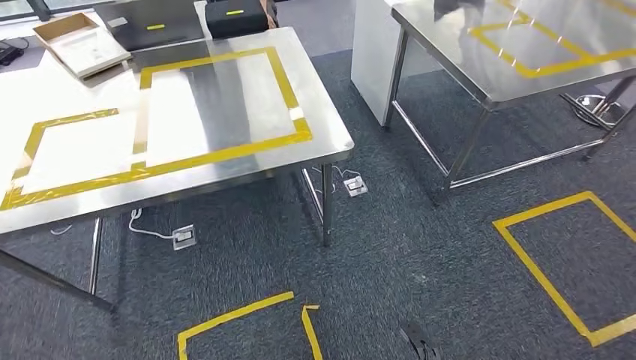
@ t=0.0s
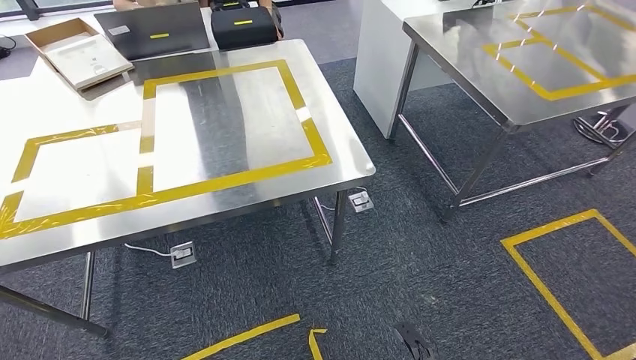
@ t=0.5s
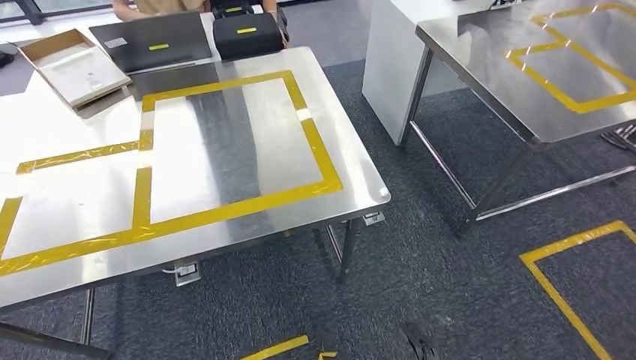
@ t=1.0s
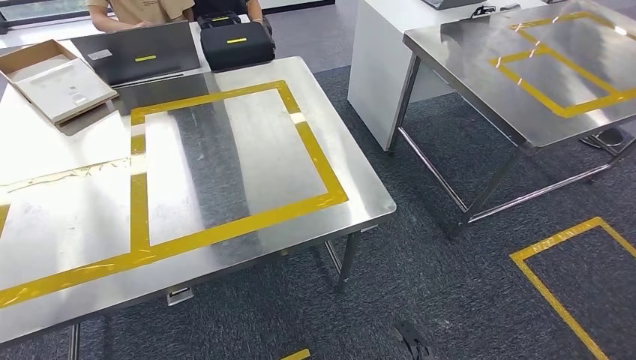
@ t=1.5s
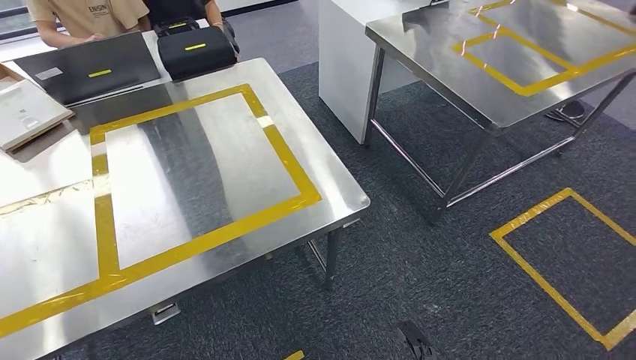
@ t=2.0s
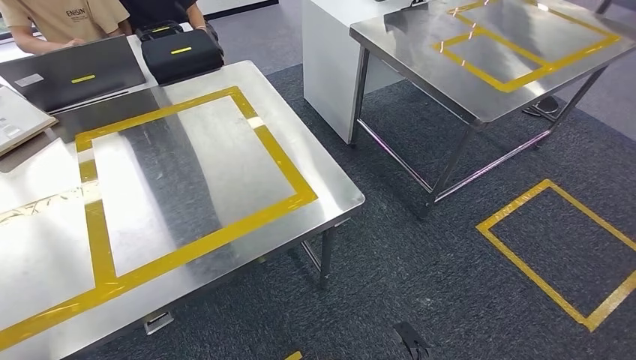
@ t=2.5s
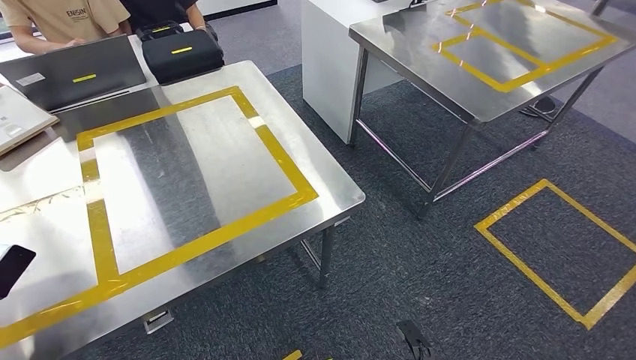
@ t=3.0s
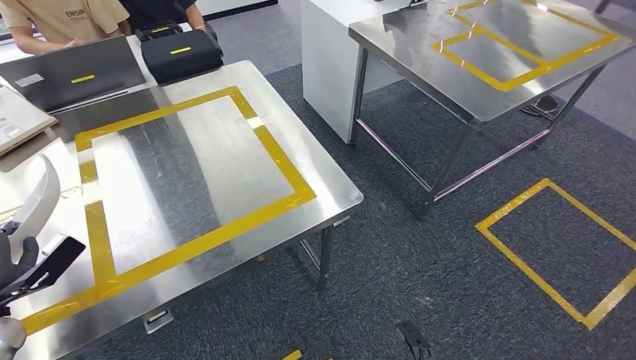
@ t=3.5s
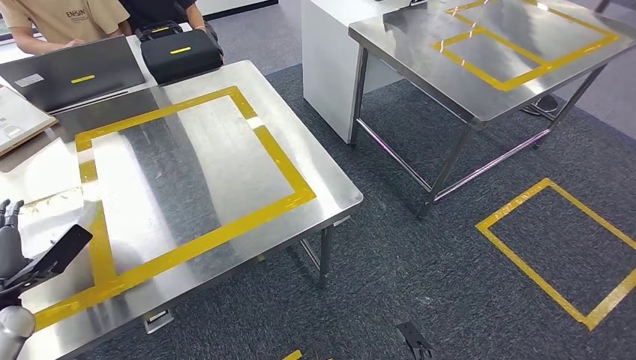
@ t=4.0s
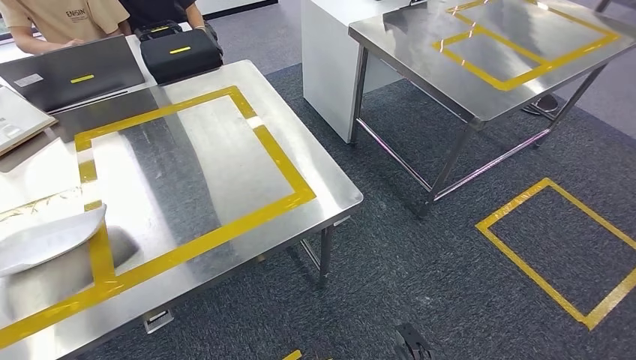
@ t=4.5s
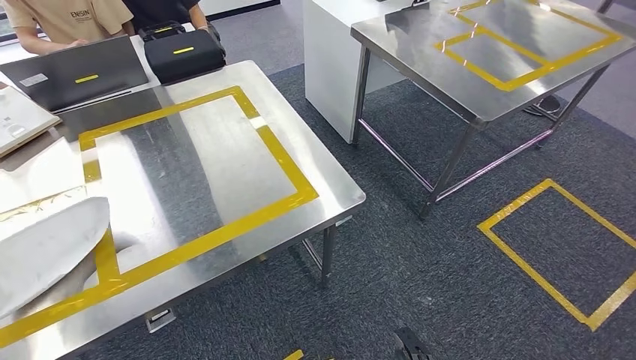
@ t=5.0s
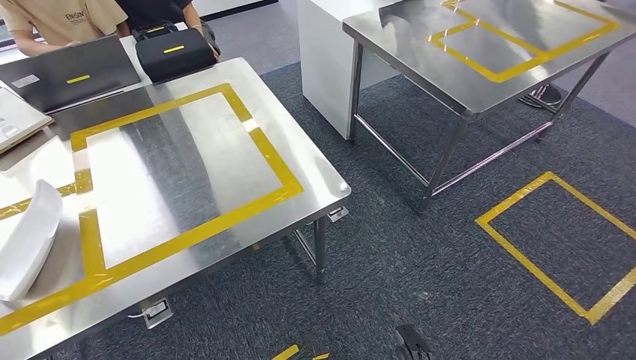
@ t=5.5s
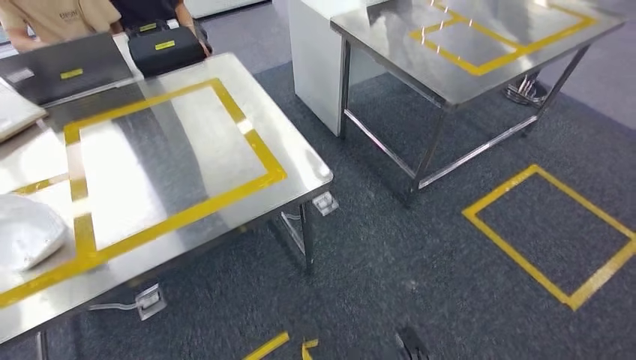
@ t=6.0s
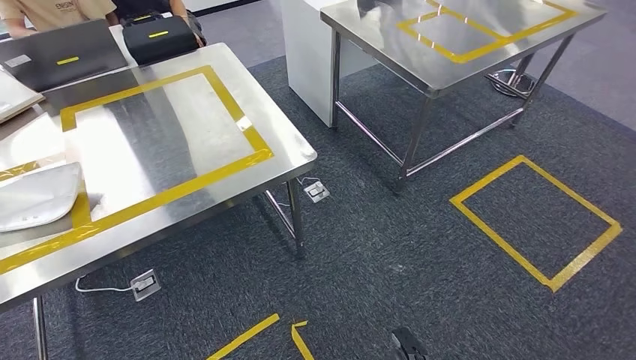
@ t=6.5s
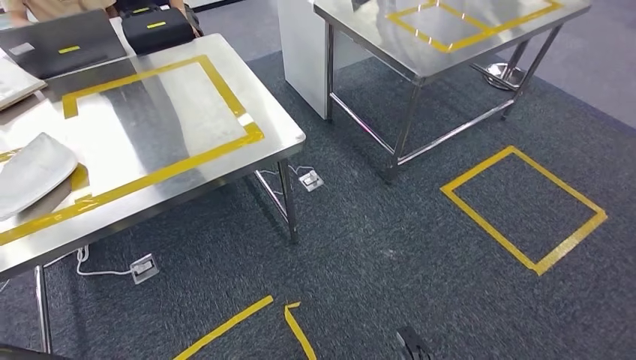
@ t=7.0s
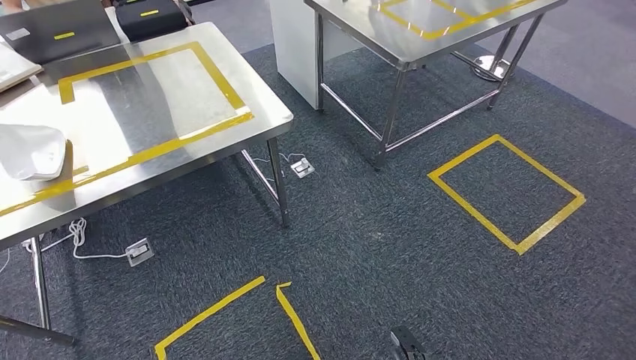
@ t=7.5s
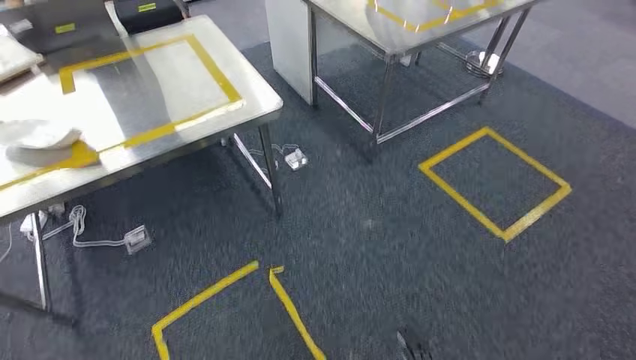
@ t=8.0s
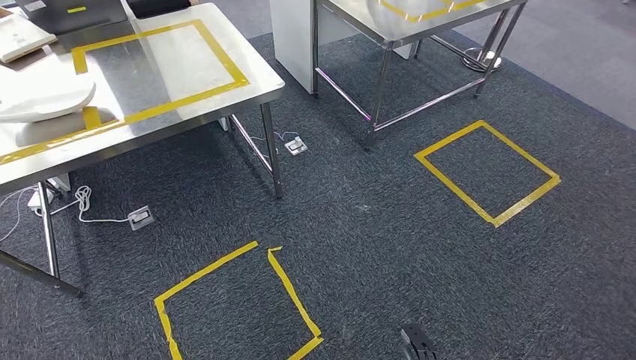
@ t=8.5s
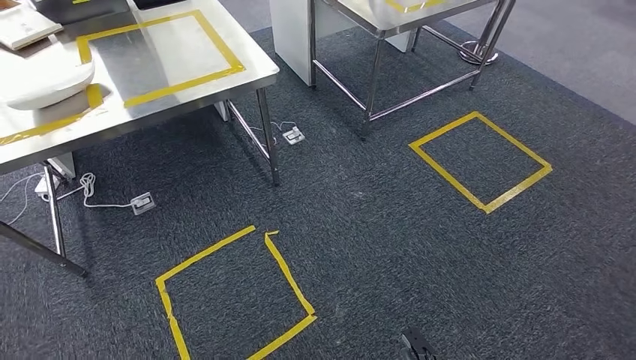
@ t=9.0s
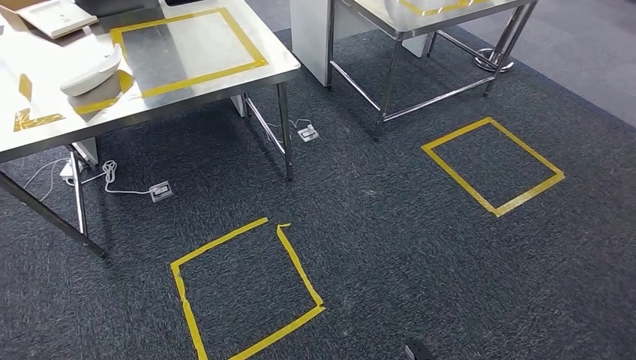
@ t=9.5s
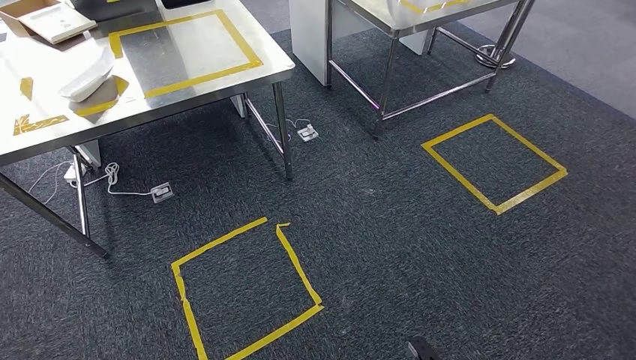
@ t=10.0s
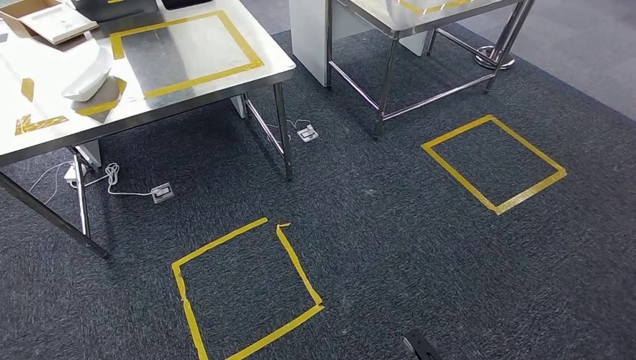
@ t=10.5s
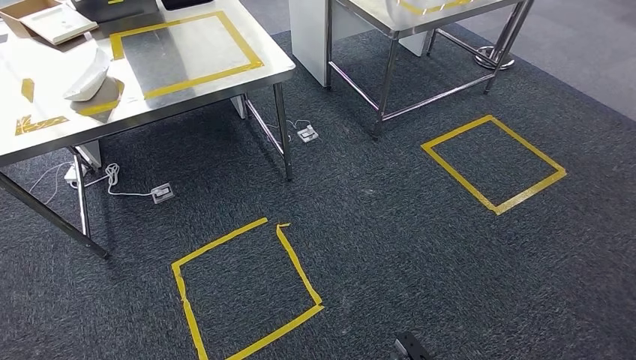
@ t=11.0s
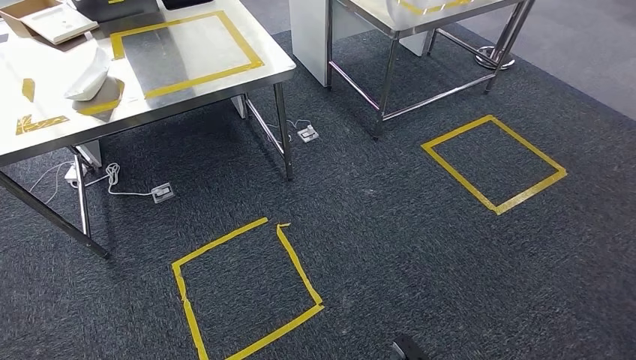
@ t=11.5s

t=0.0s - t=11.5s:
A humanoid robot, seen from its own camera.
Step, t=1.5s - t=5.5s: Insert the small component into the corresponding slot on the workbench.
Step, t=6.0s - t=11.5s: Return to the initial position at the workbench.
t=9.5s - t=11.5s: The left hand moves about 5 cm.
